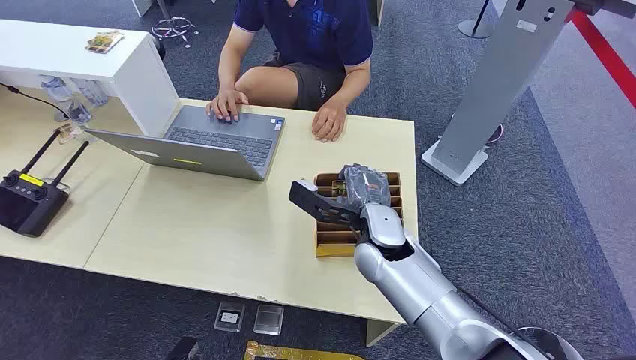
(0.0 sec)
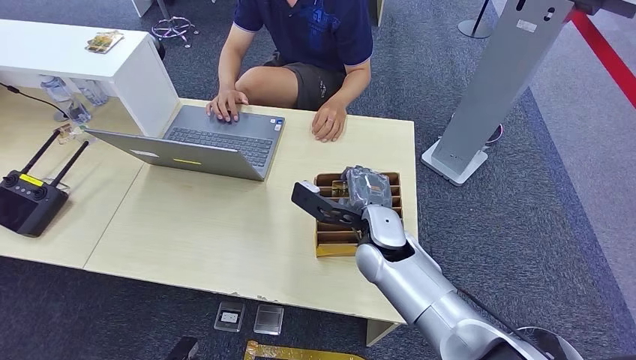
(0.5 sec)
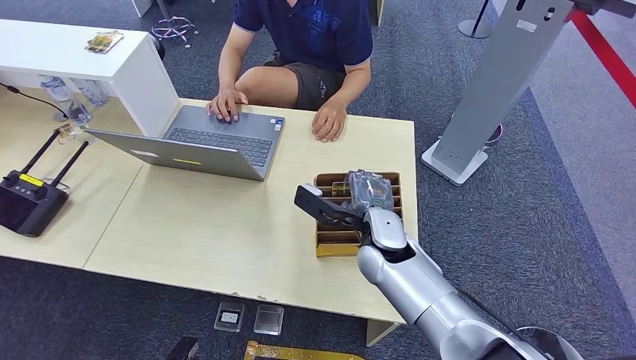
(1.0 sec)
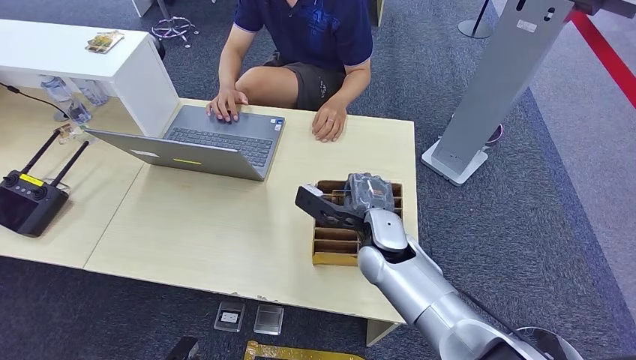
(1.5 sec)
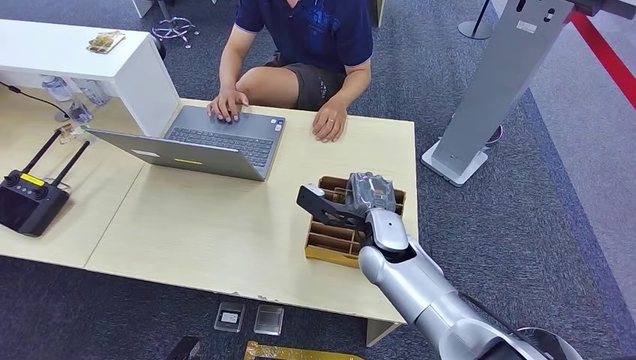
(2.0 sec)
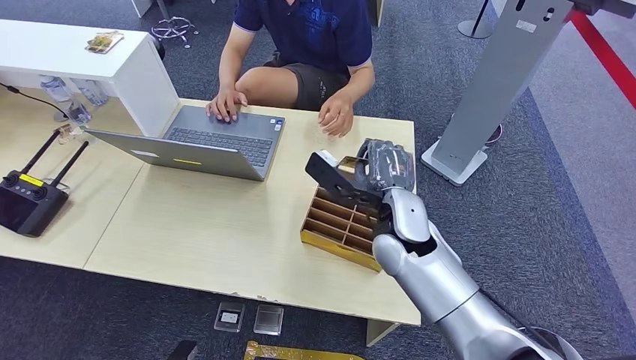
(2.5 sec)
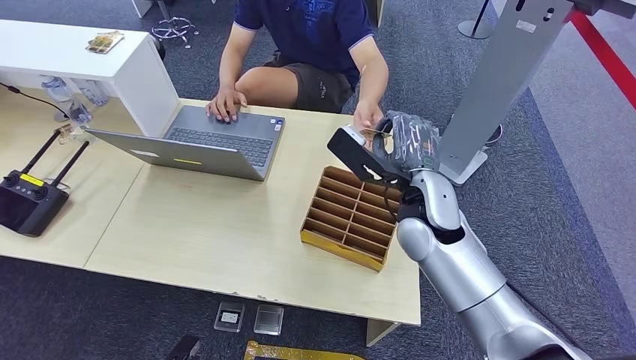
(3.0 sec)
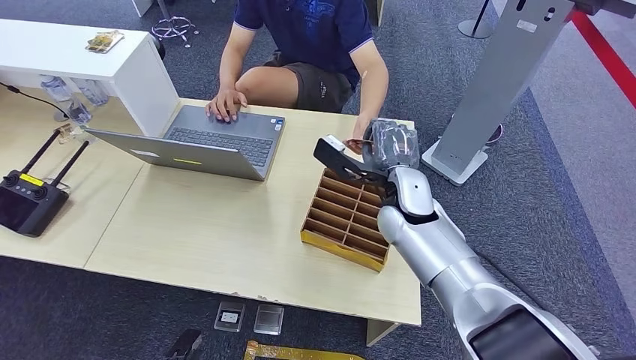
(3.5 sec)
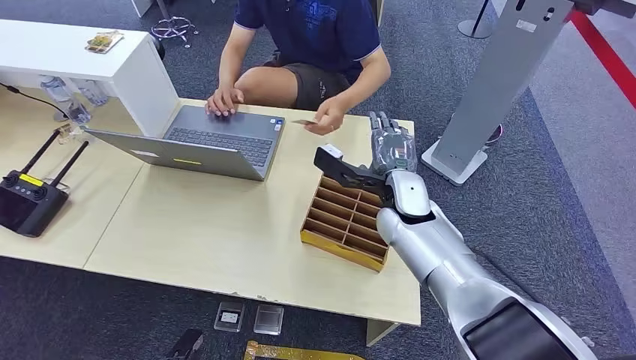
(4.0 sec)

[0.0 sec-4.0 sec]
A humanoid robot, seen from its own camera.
Step, 0.0 sec to 2.5 sec: Pick up the key card from the card box.
Step, 3.0 sec to 3.5 sec: Hand the key card to the target.
2.0 sec to 4.0 sec: The right hand heads forward, covering about 5 cm.

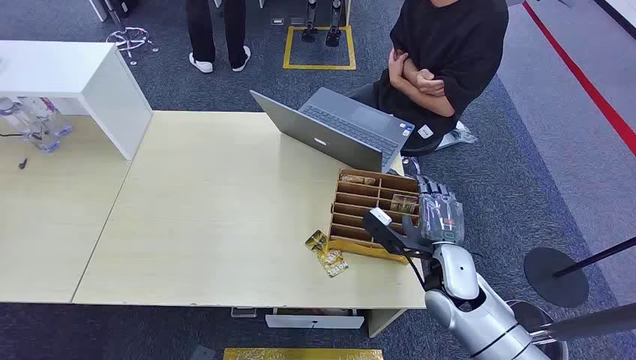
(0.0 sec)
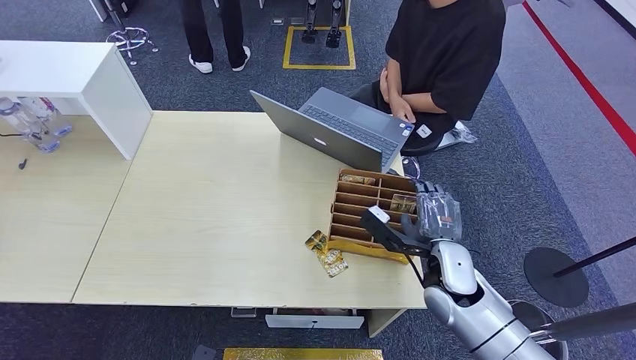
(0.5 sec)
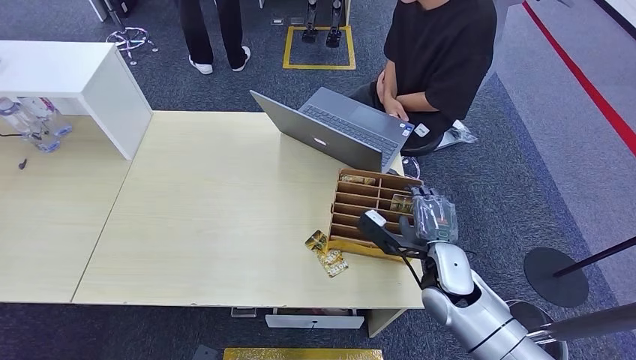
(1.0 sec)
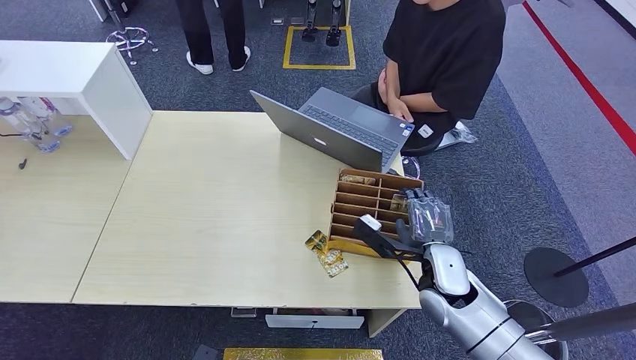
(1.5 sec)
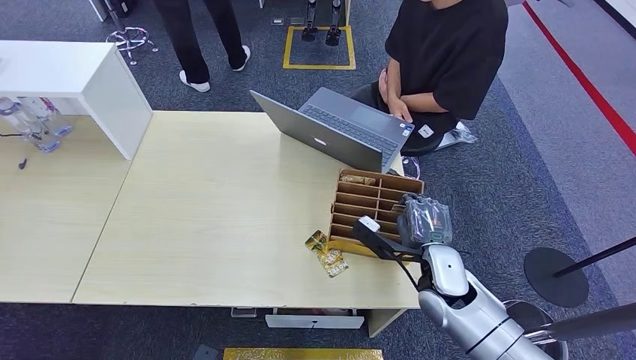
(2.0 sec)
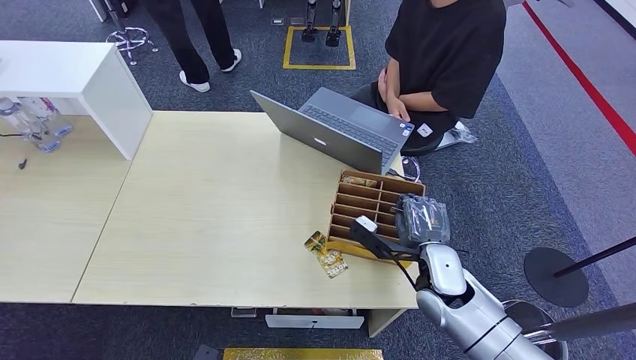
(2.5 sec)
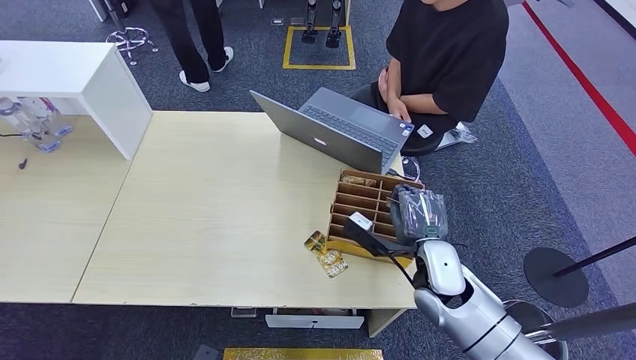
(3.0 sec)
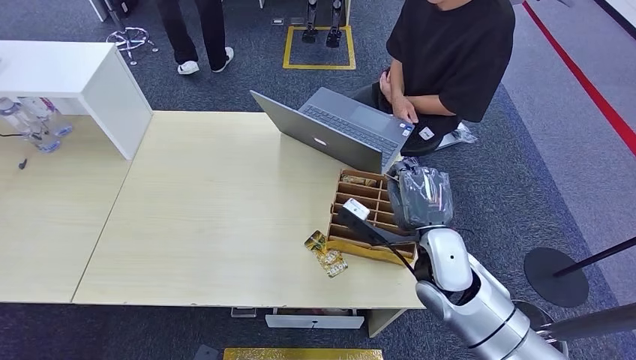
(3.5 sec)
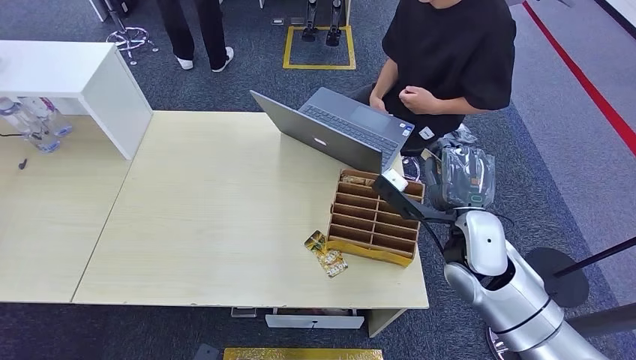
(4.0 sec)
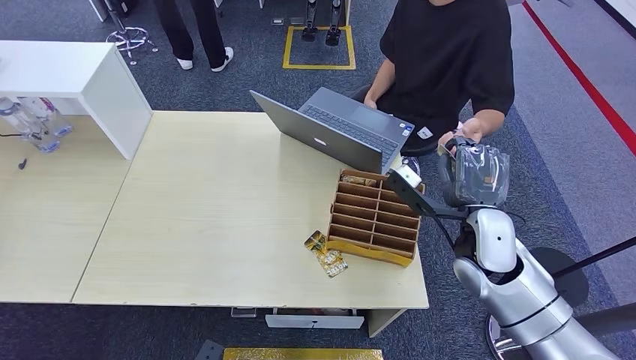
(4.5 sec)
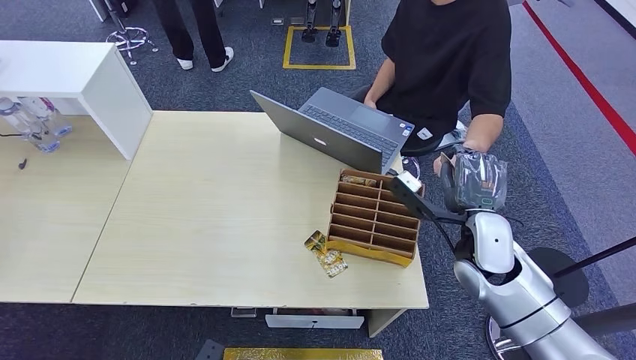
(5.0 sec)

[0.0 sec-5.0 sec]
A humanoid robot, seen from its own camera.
Step, 0.0 sec to 3.5 sec: Pick up the key card from the card box.
Step, 4.0 sec to 5.0 sec: Hand the key card to the target.
2.5 sec to 5.0 sec: The right hand goes about 10 cm upward and to the right.
